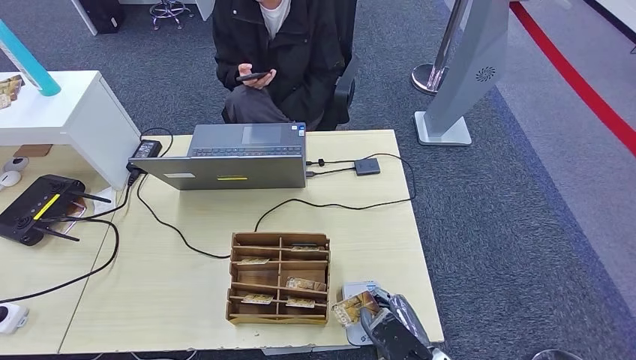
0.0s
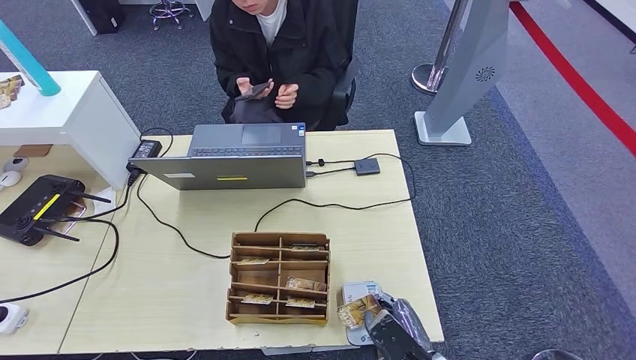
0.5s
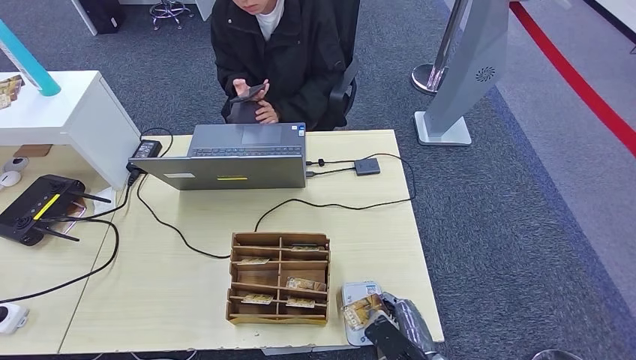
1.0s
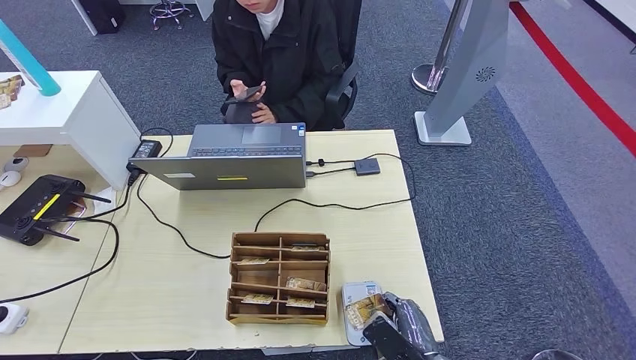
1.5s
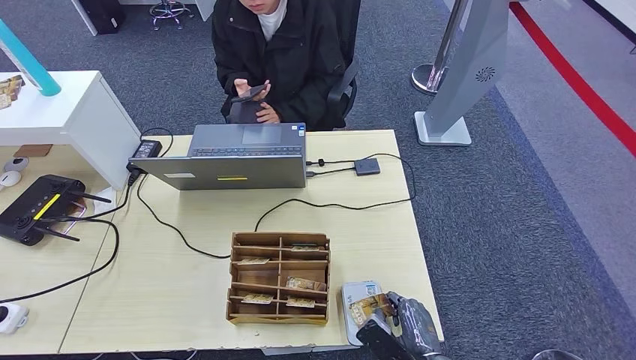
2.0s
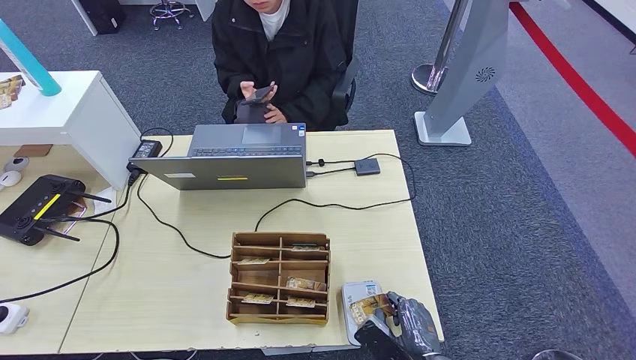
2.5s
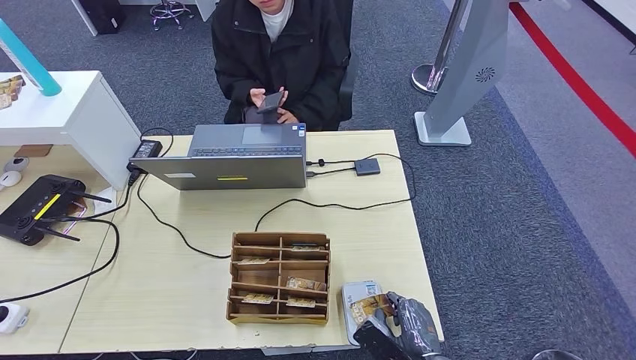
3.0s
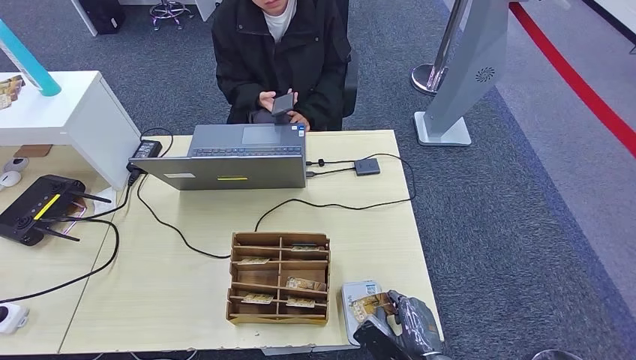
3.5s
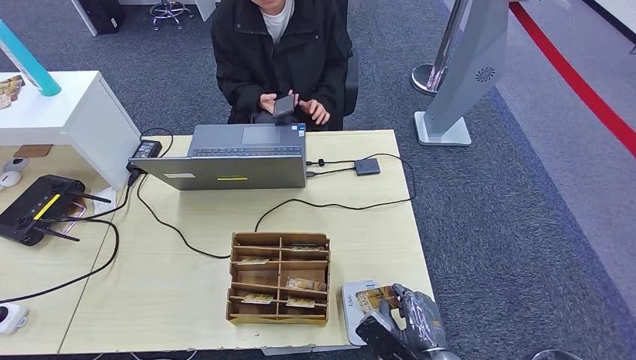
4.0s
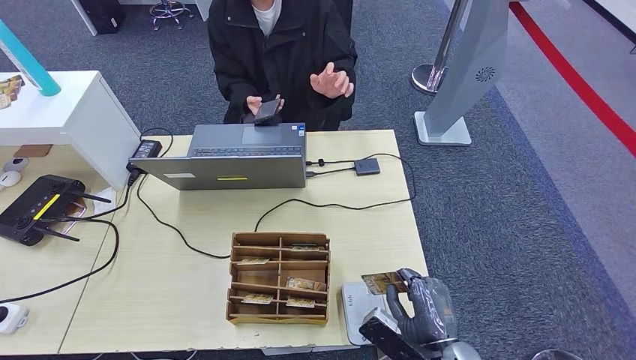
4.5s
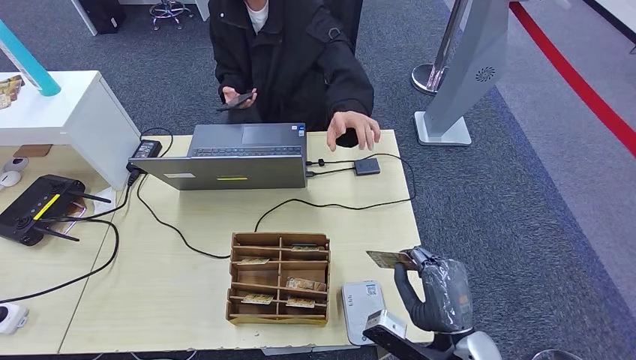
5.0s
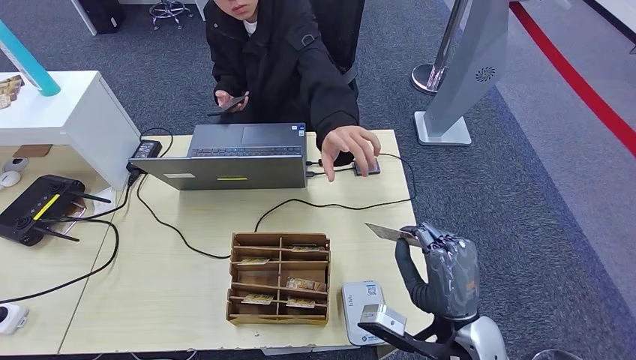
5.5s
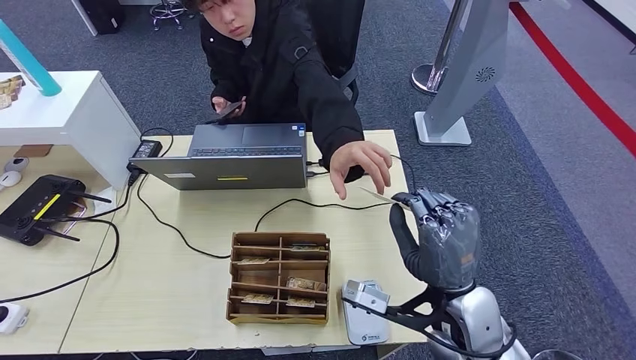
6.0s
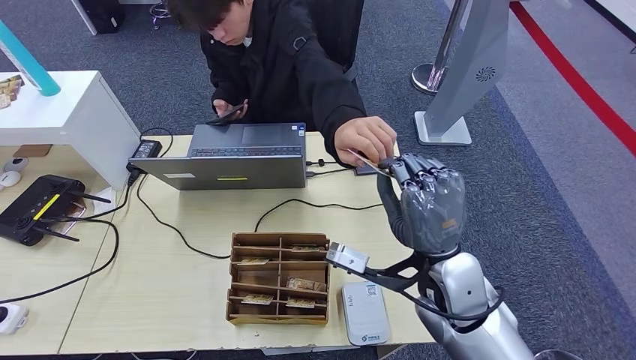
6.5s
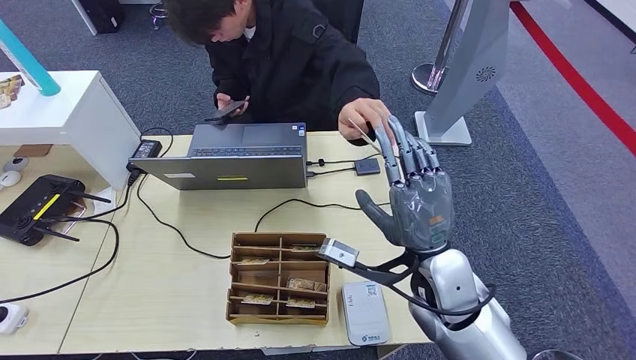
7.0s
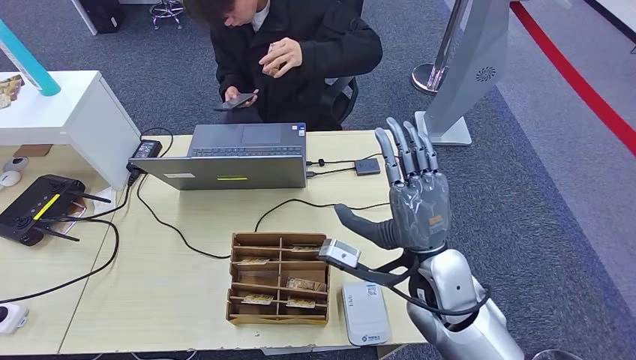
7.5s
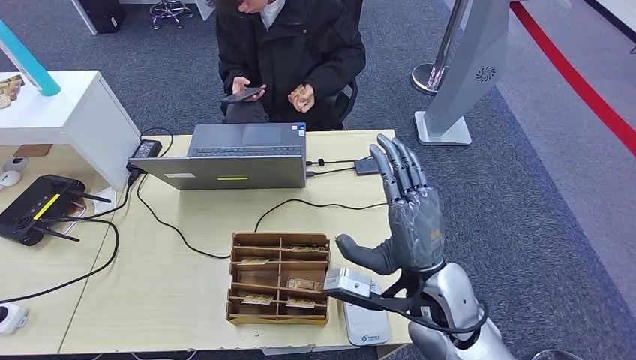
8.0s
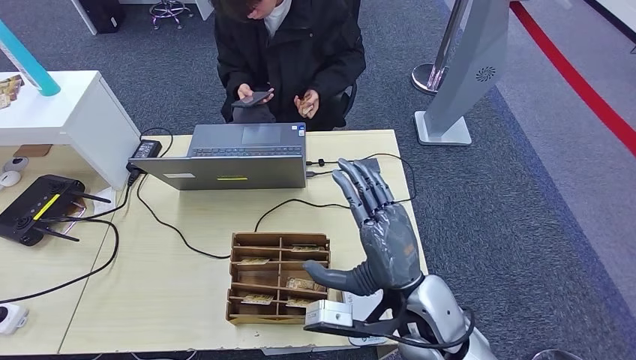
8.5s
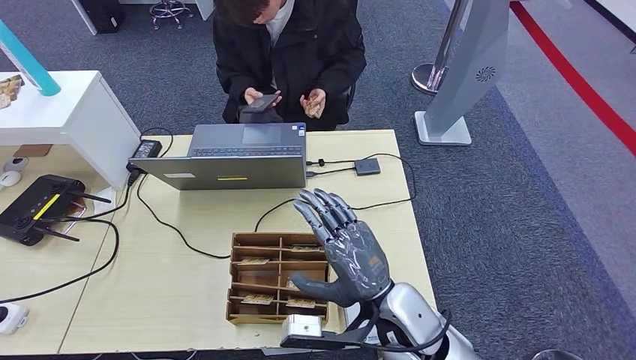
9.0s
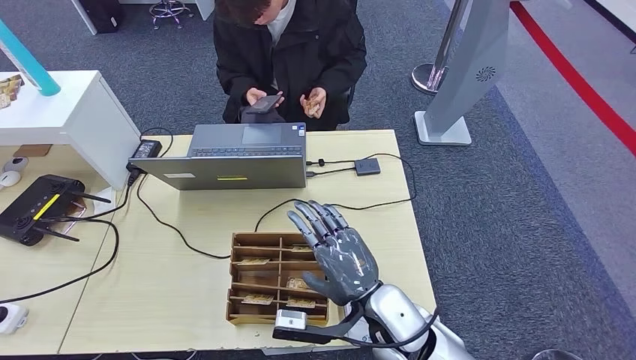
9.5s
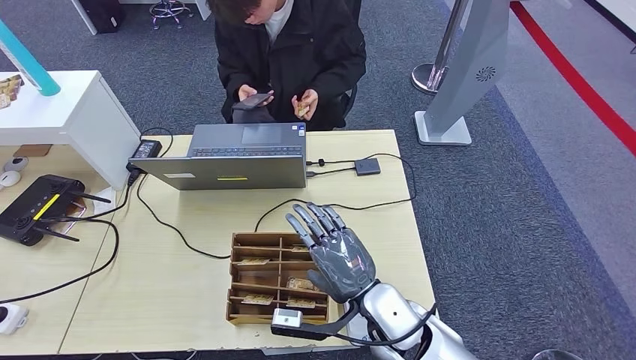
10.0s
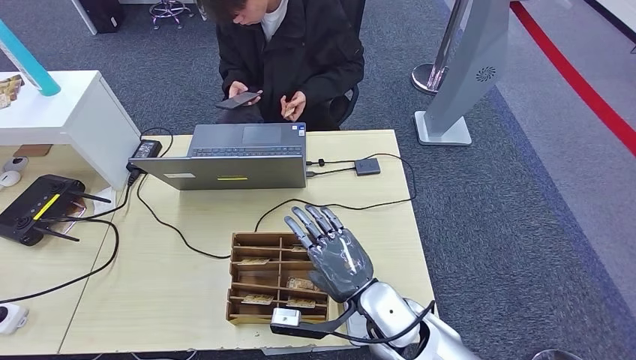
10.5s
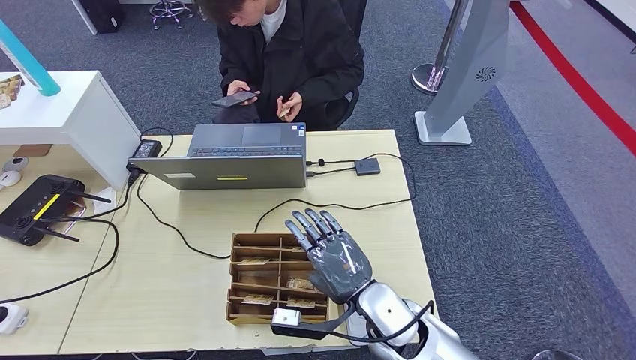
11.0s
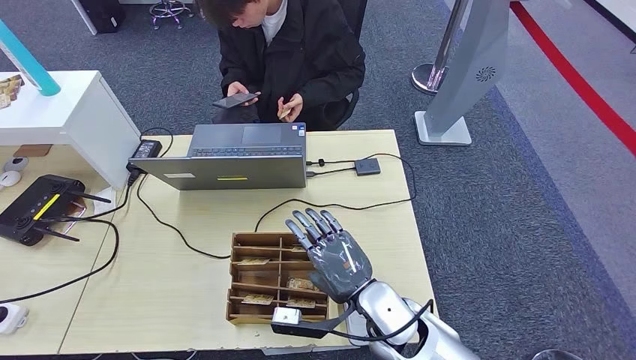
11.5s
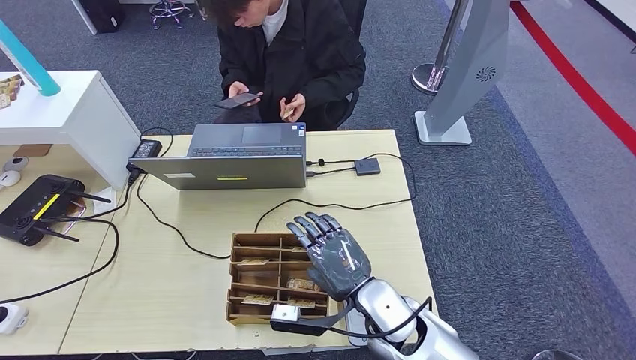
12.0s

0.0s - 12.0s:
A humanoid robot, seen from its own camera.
Step, 0.0s - 2.0s: Place the ID card on the card reader.
Step, 2.5s - 7.5s: Hand the ID card to the person.
2.0s - 4.0s: The hands make only small movements.
4.0s - 6.0s: The right hand is displaced upward and forward by some 15 cm.
6.0s - 8.0s: There are only small adjustments of the hands.
8.0s - 10.0s: The right hand goes about 10 cm downward and to the left.
10.0s - 12.0s: The hands make only small movements.

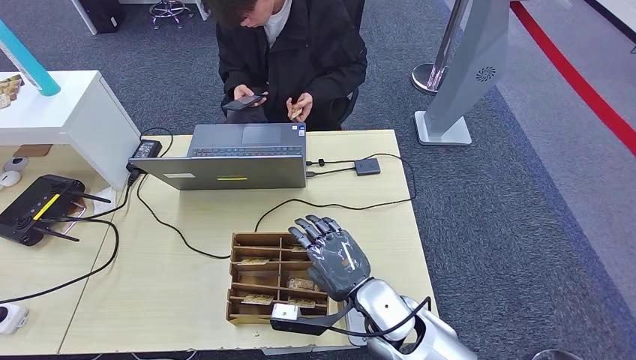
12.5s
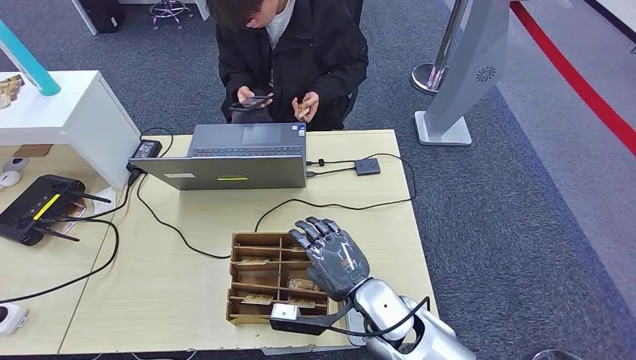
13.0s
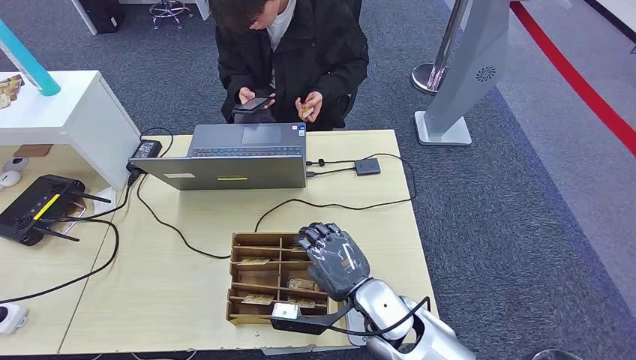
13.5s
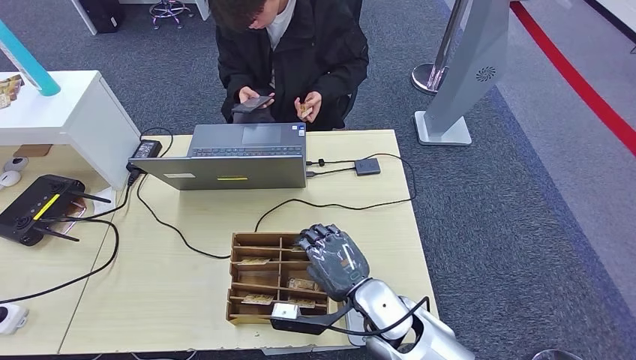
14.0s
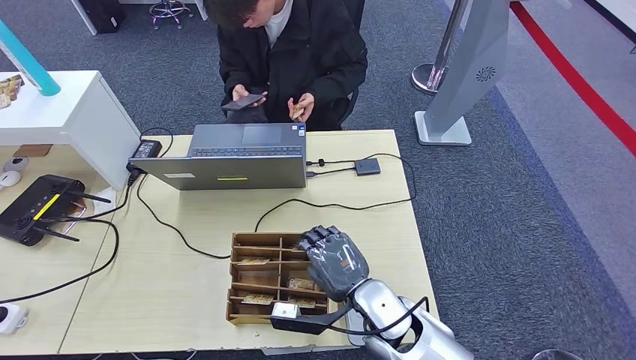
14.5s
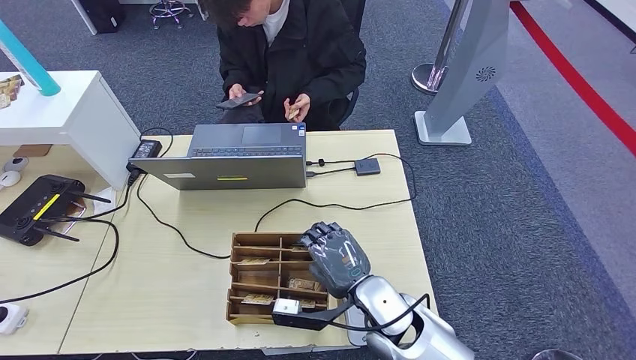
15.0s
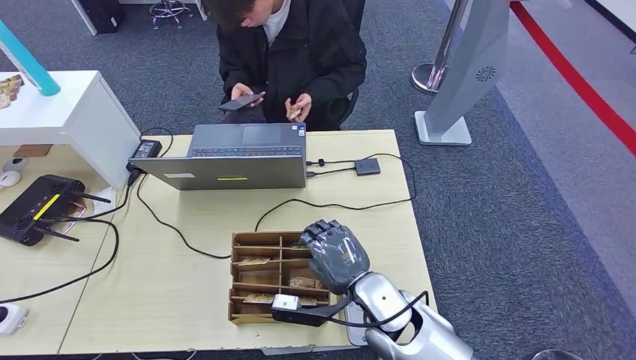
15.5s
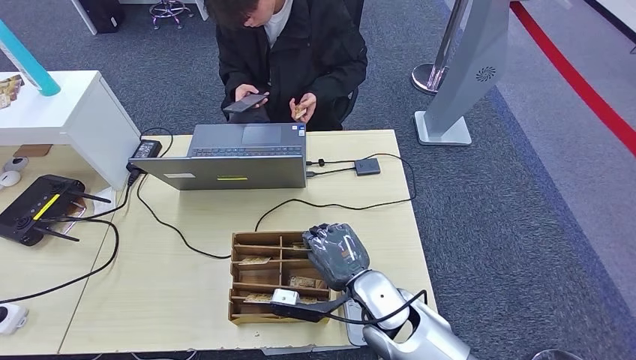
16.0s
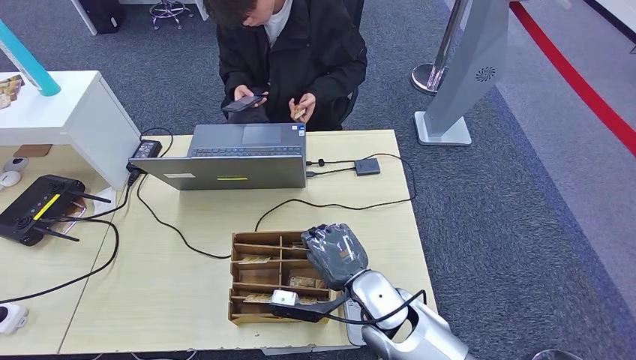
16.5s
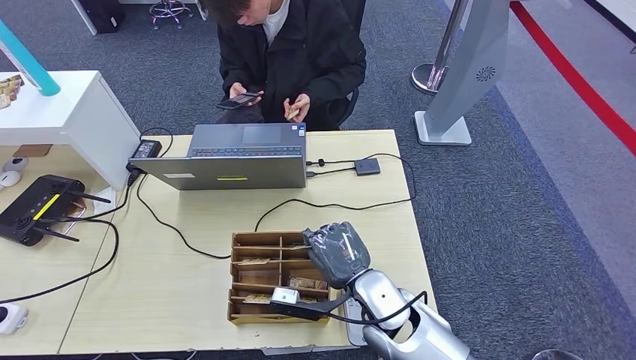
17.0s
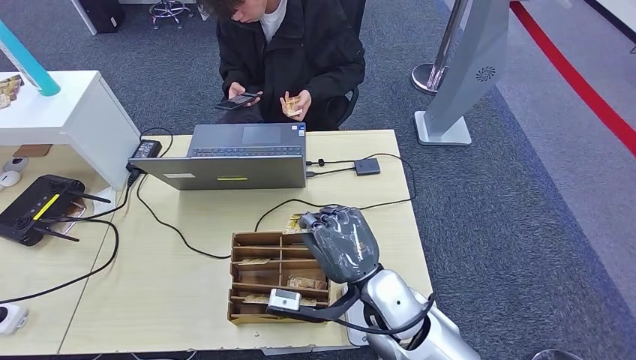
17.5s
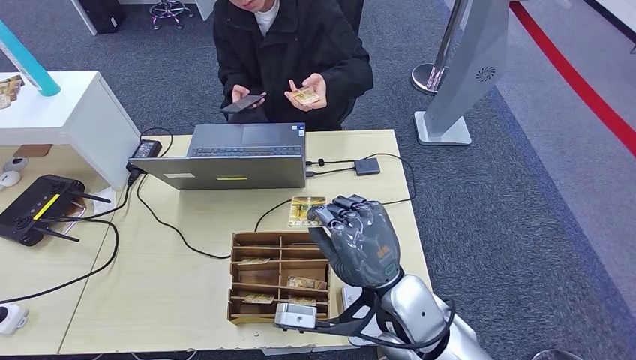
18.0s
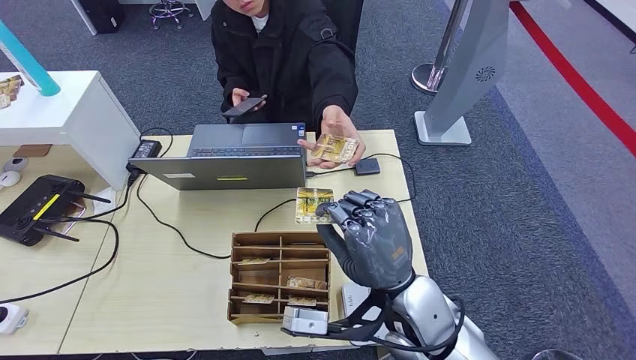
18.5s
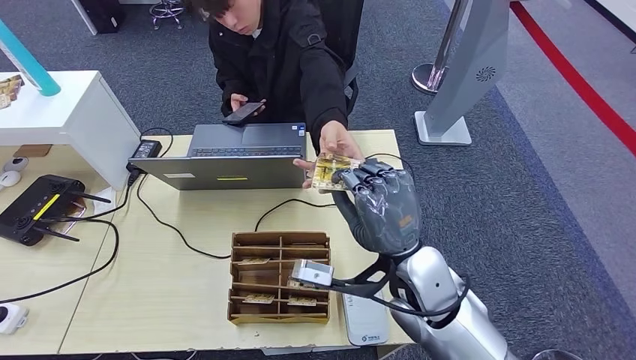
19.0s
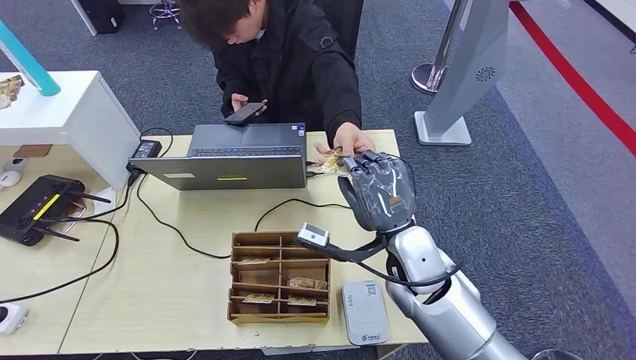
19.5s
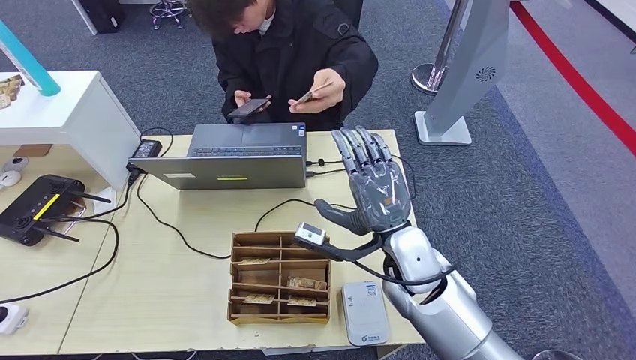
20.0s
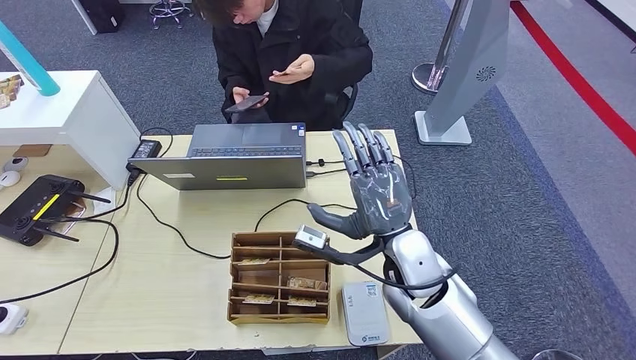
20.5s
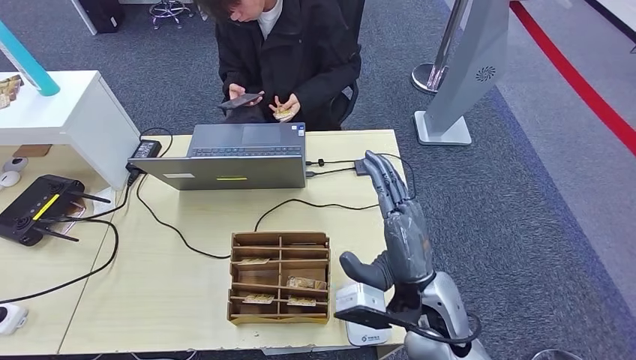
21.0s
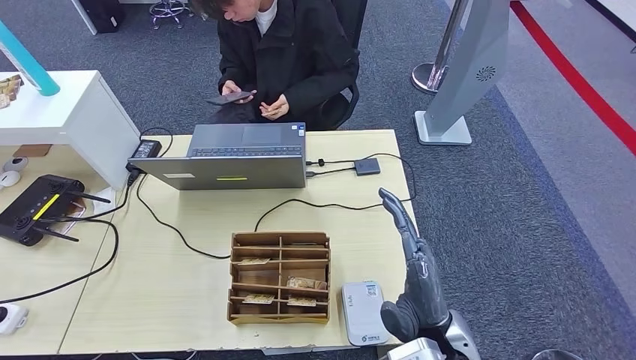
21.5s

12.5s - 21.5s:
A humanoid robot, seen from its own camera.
Step, 14.5s - 21.5s: Hand the room key to the person.
12.5s - 14.5s: Both hands stay about where they are.
14.5s - 17.0s: There are only small adjustments of the hands.
17.0s - 19.5s: The right hand moves upward, some 10 cm.
19.5s - 21.5s: The right hand moves backward, approximately 10 cm.
